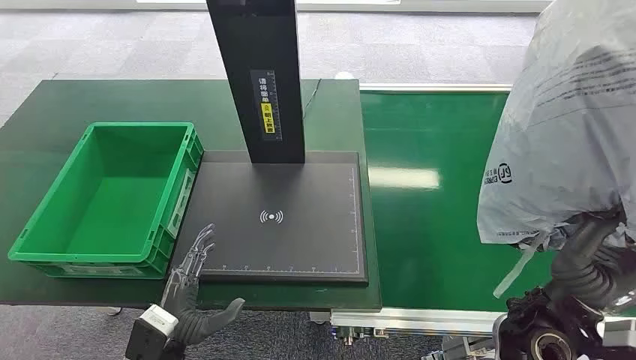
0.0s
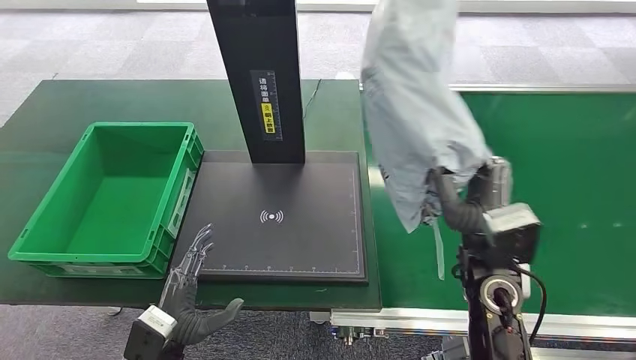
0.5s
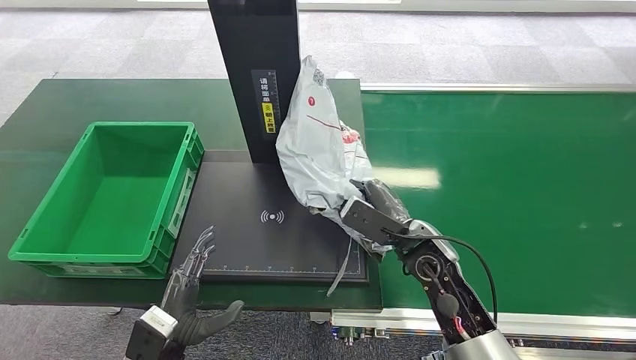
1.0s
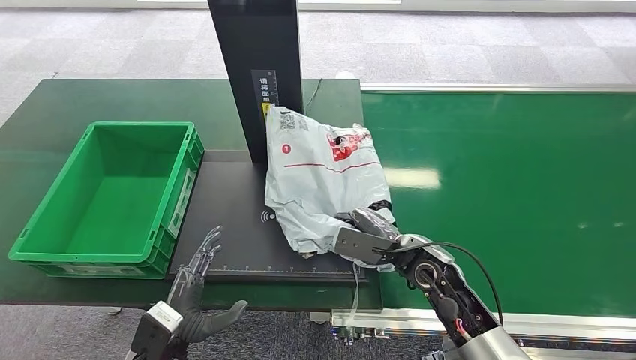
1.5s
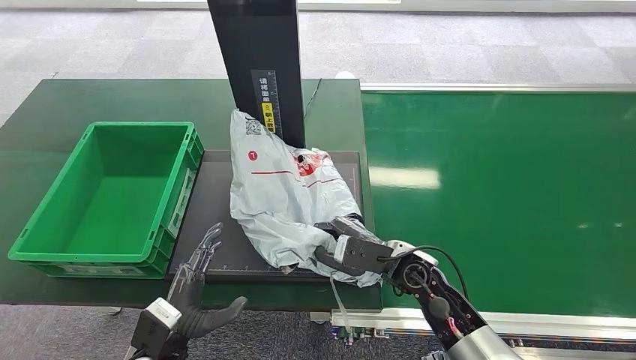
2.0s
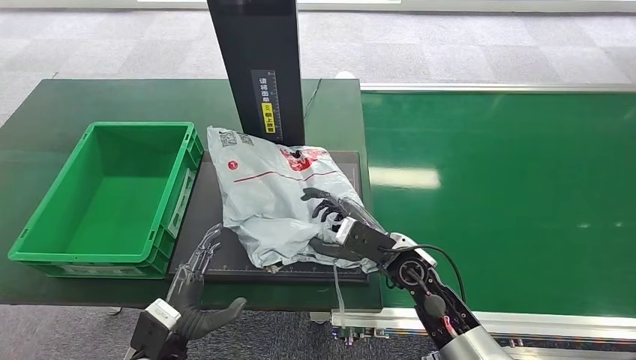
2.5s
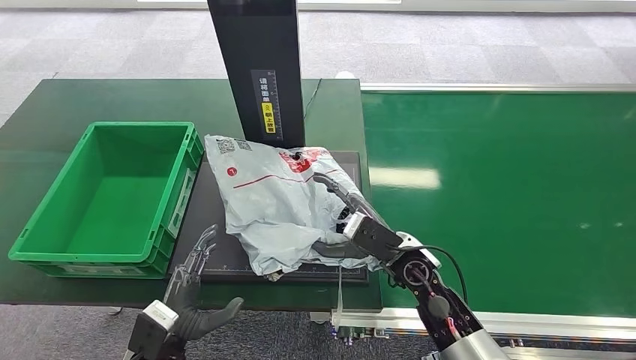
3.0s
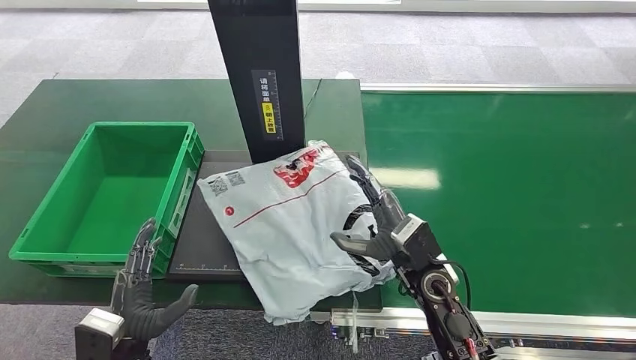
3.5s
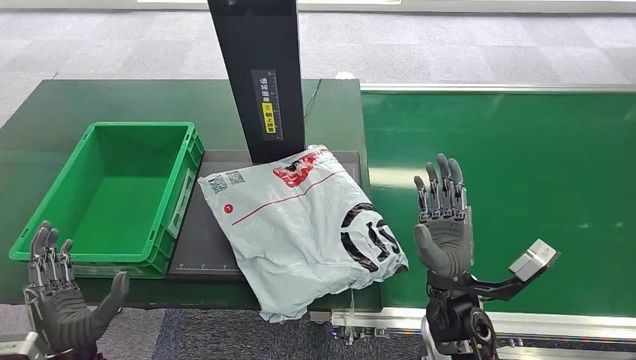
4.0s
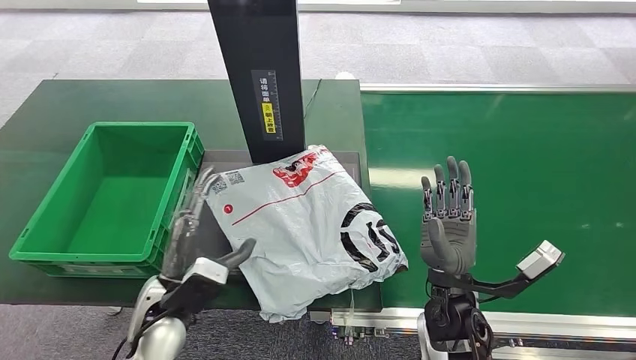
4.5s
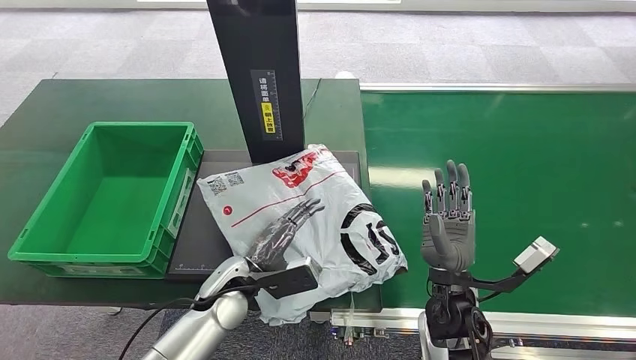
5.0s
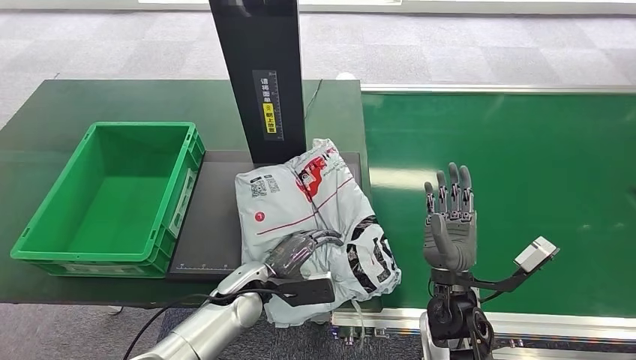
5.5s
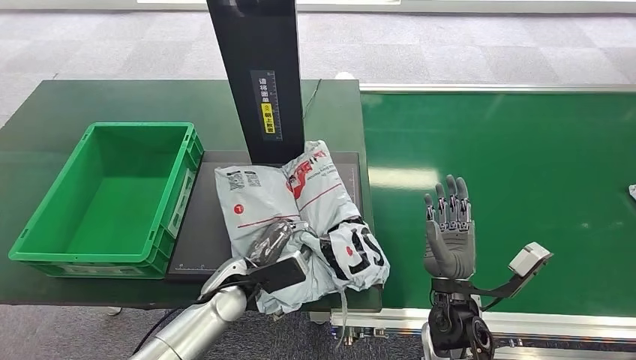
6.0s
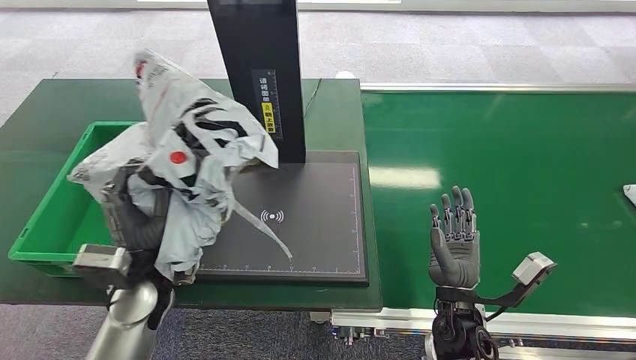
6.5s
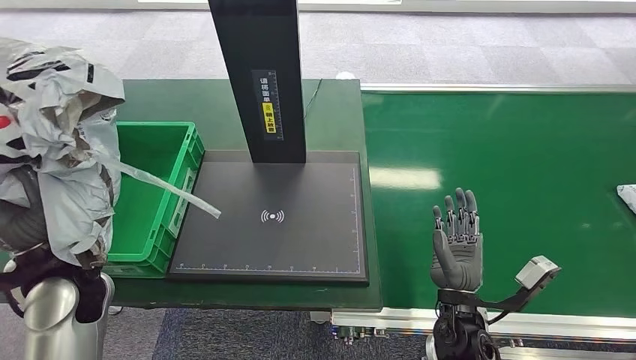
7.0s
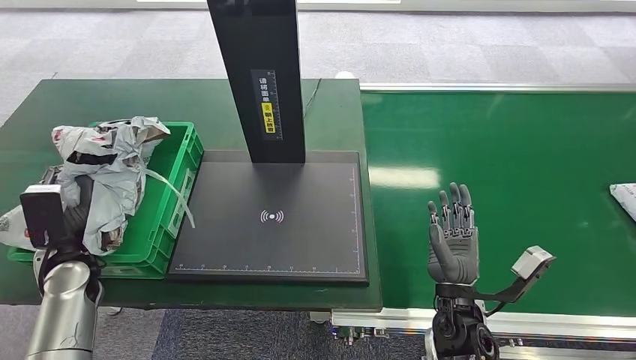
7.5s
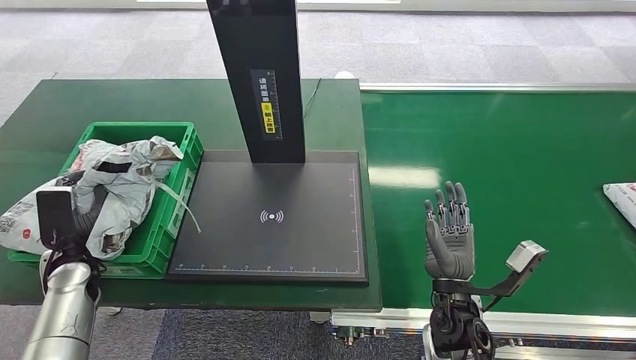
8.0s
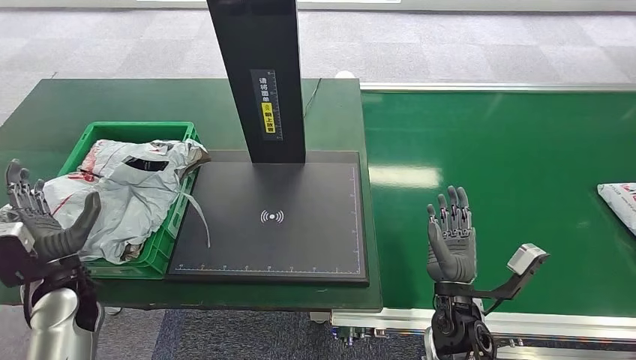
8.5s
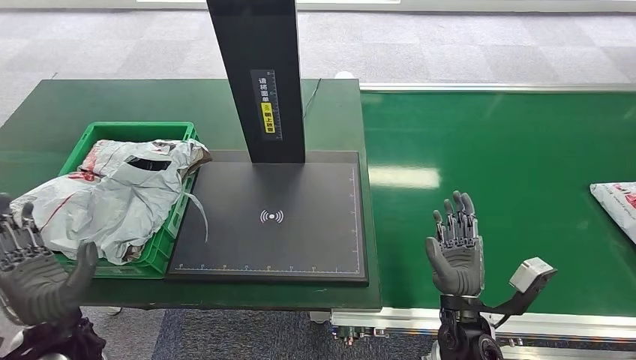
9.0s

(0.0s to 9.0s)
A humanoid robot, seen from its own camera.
2.0s - 4.5s: The left hand goes some 10 cm upward and forward, and reaches approximately 5 cm to the left, then returns, while the right hand goes roughly 5 cm backward.
7.0s - 9.0s: The left hand is displaced backward and downward by approximately 10 cm.
